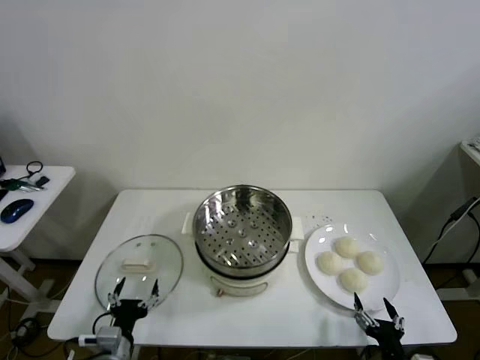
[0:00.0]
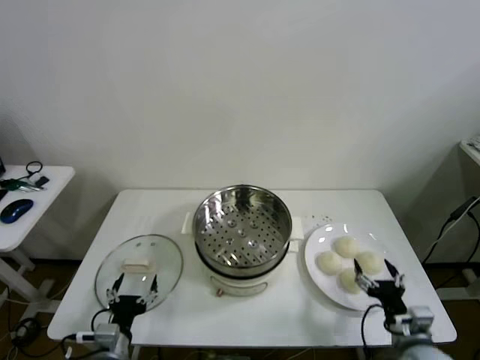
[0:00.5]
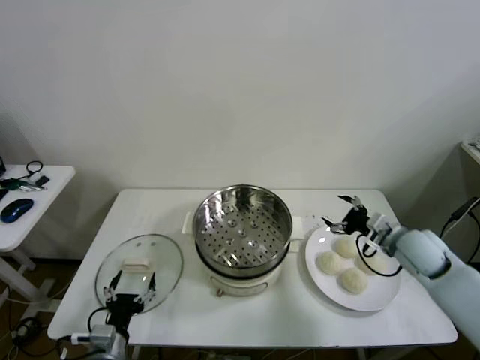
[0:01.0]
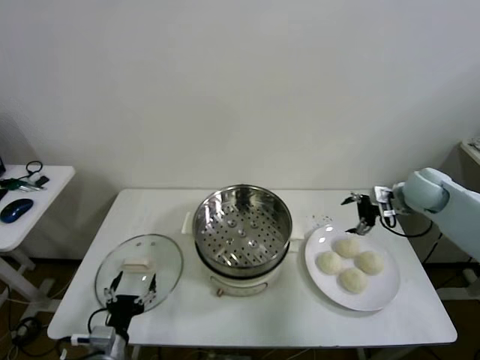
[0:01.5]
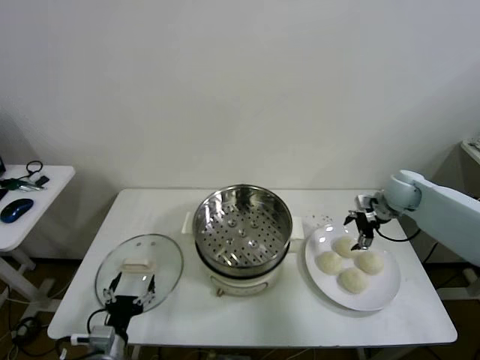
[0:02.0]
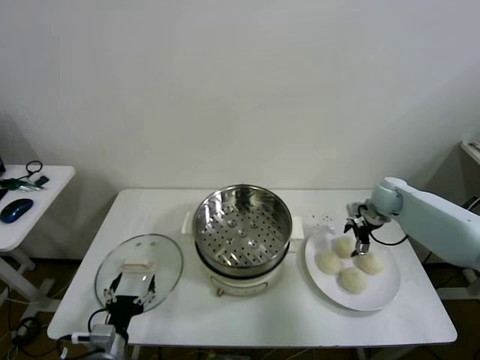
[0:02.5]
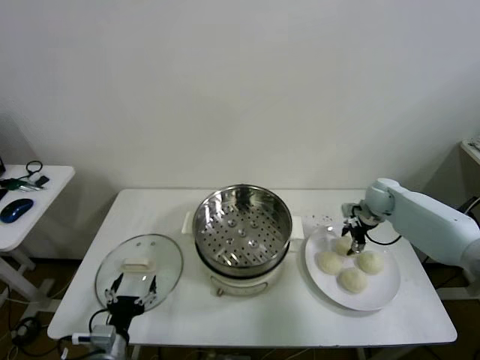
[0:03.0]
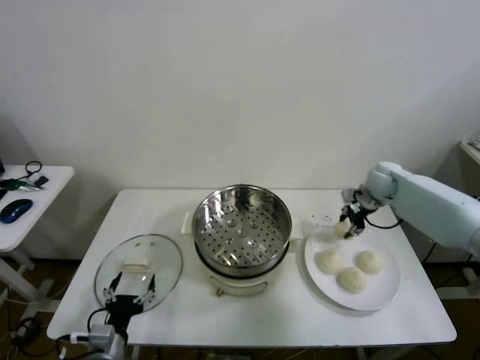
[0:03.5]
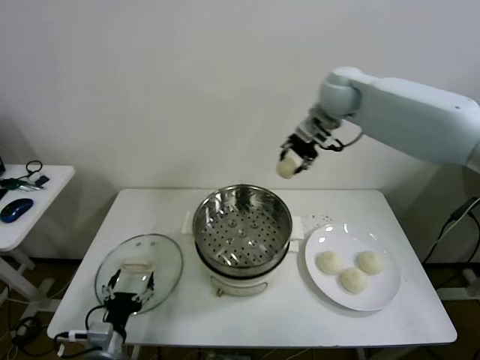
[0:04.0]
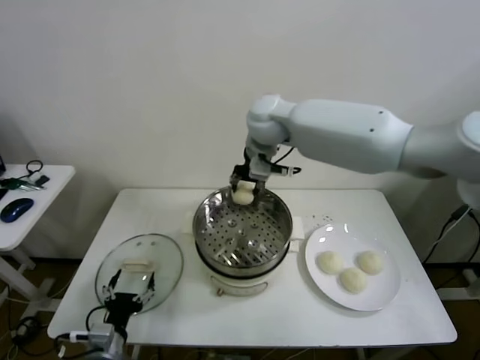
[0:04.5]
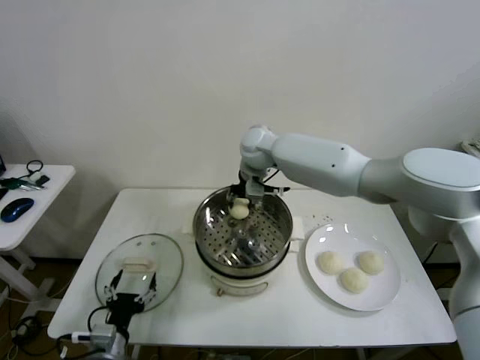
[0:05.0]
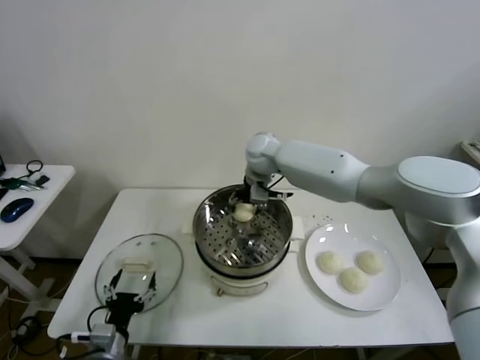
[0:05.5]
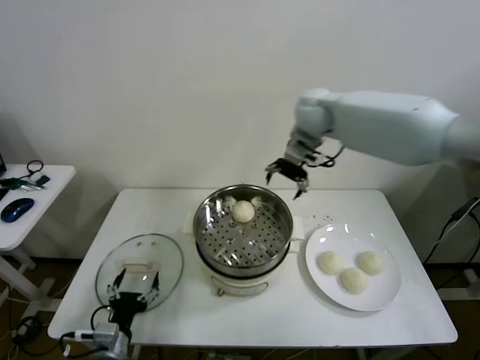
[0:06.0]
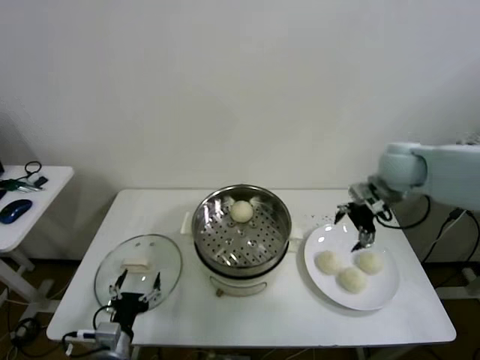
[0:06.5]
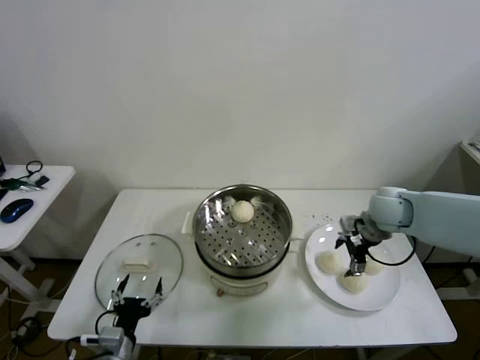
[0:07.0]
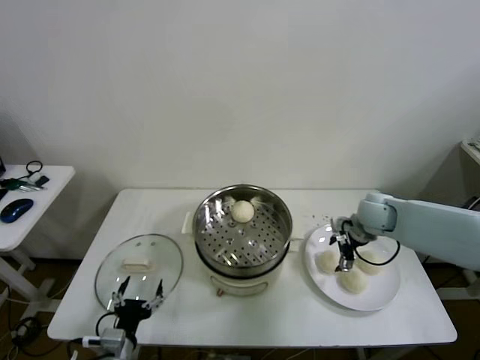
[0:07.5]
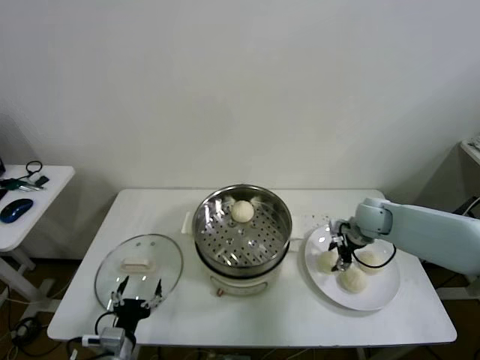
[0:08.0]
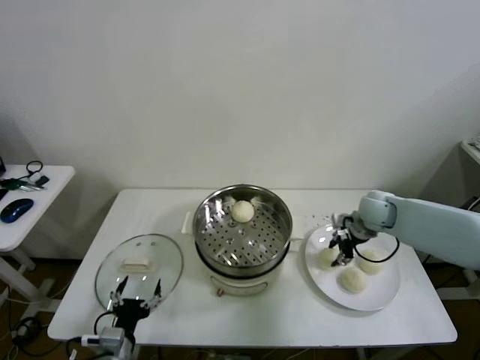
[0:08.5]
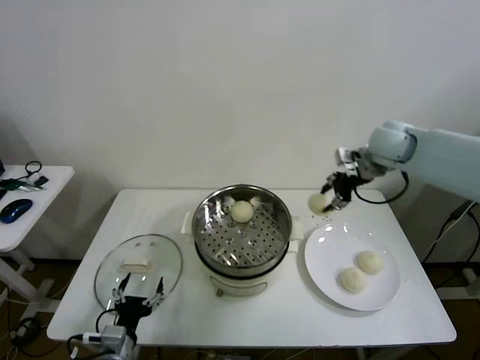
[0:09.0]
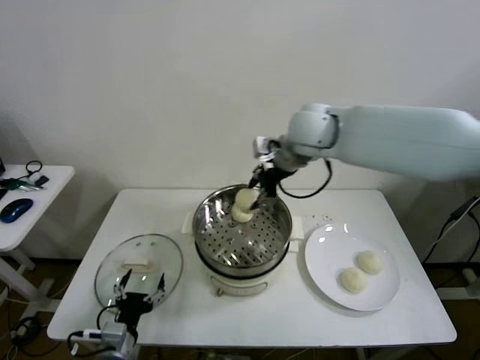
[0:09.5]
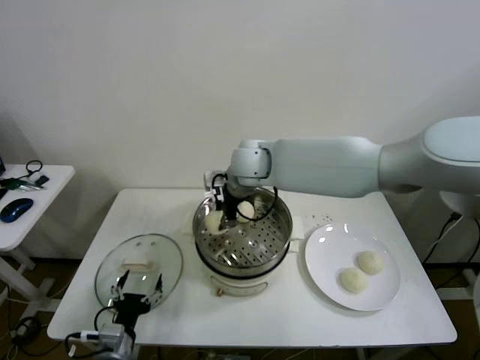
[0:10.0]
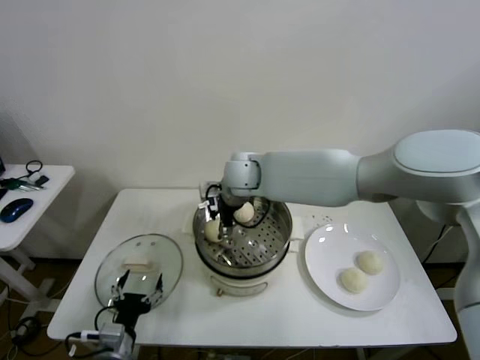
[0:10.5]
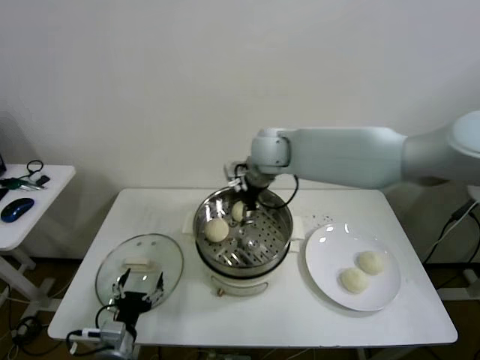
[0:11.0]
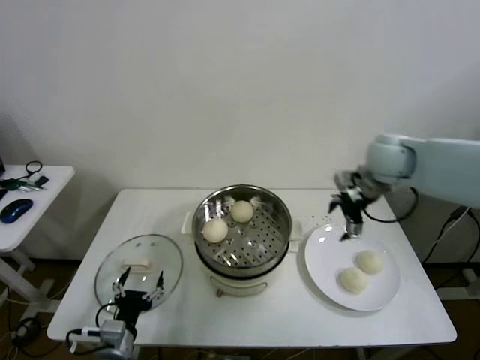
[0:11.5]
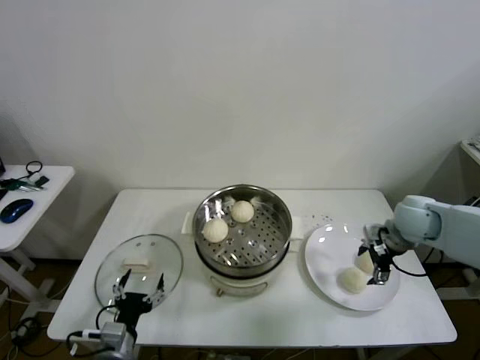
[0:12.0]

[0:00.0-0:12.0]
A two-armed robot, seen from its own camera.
Step, 0:00.0 to 0:03.0: Grasp the baozi in the plate with right gripper.
Step, 0:03.5 to 0:05.5: Place the baozi on the steamer with right gripper.
Step, 0:06.0 to 0:08.0: Grasp the baozi in the plate with right gripper.
Step, 0:08.5 to 0:10.5: Place the baozi on the steamer with right gripper.
0:02.0 to 0:04.0: The right gripper travels upward and to the left by roughly 35 cm, and closes.
0:04.0 to 0:06.0: The right gripper shifts some 10 cm to the right, and opens.
0:06.0 to 0:08.0: The right gripper travels downward and to the right by roughly 30 cm, and closes.
0:08.0 to 0:10.0: The right gripper shifts approximately 35 cm to the left and upward.
0:10.0 to 0:12.0: The right gripper heads to the right, covering about 35 cm, and opens its fingers.

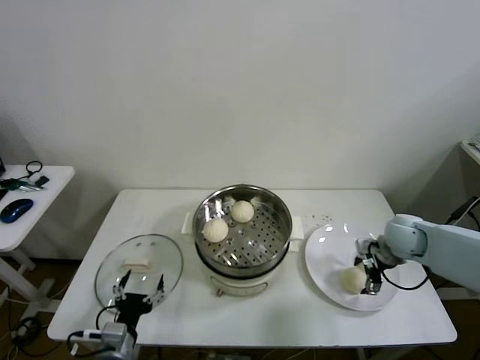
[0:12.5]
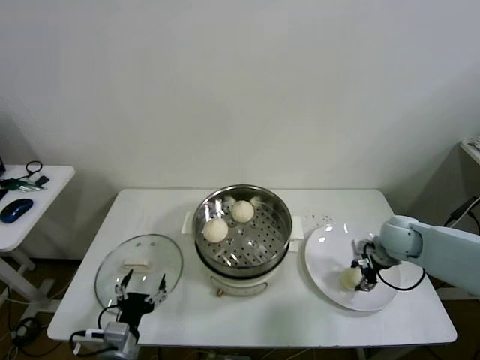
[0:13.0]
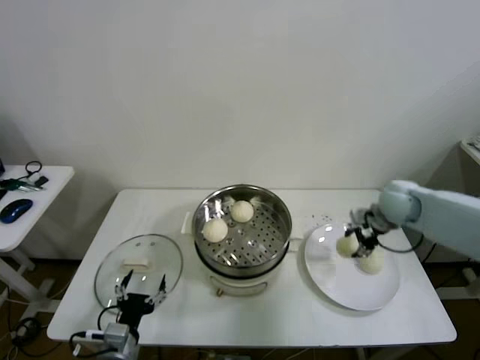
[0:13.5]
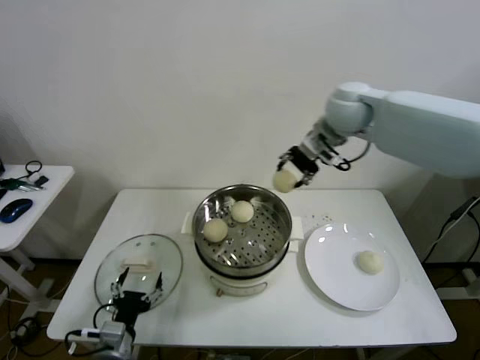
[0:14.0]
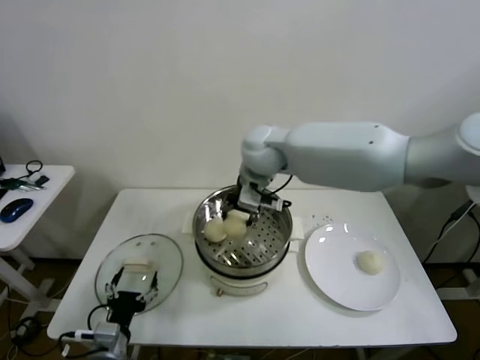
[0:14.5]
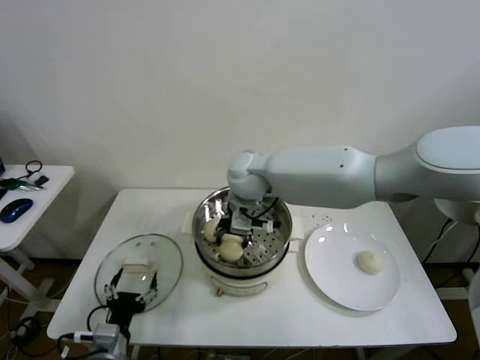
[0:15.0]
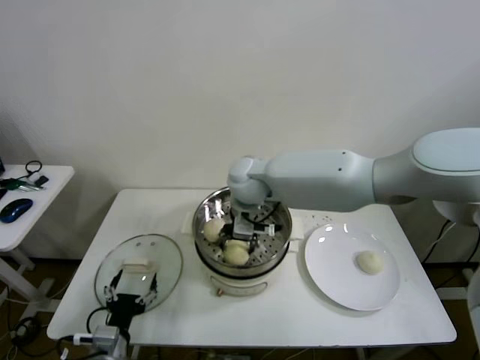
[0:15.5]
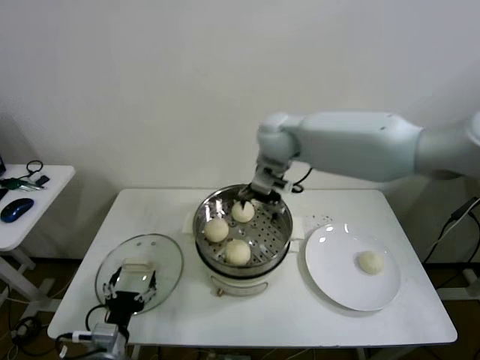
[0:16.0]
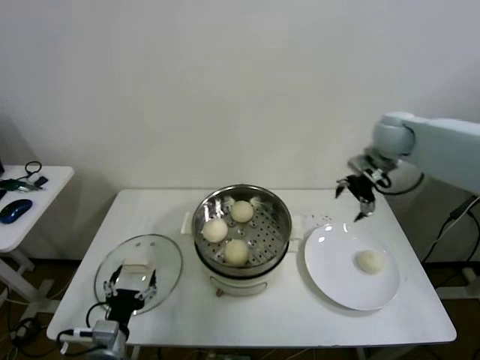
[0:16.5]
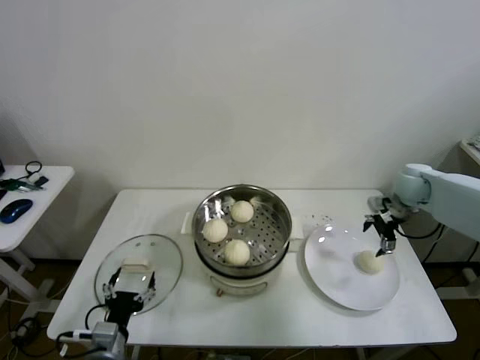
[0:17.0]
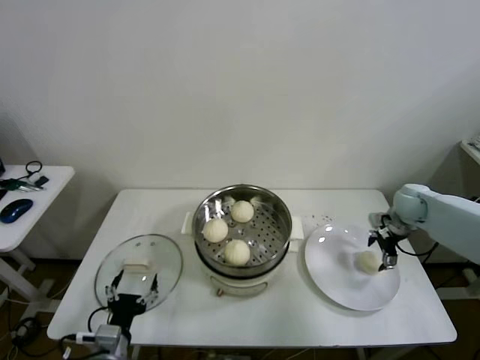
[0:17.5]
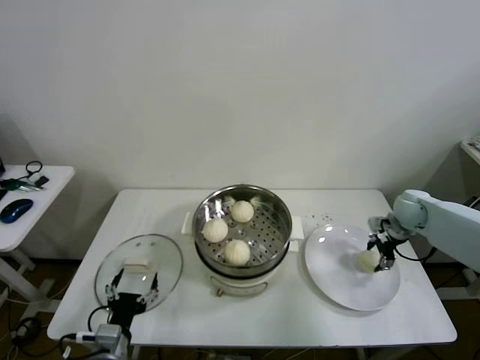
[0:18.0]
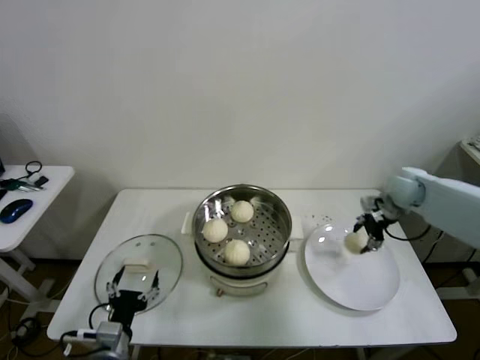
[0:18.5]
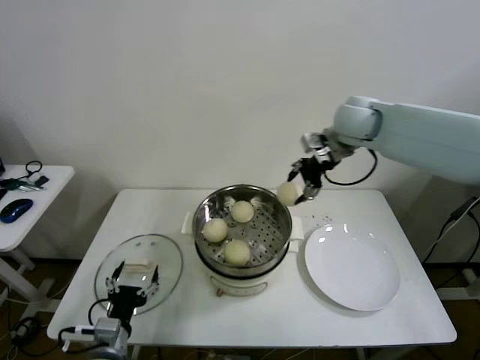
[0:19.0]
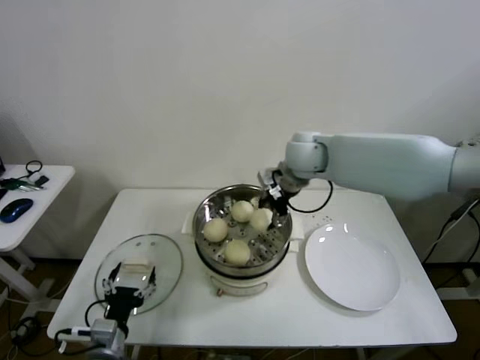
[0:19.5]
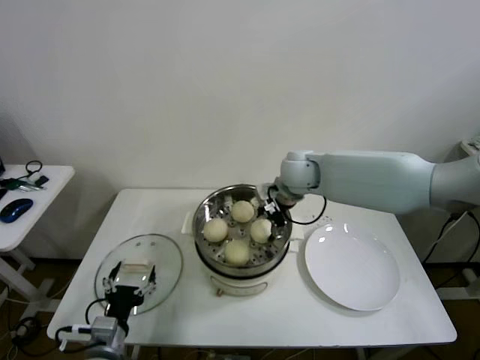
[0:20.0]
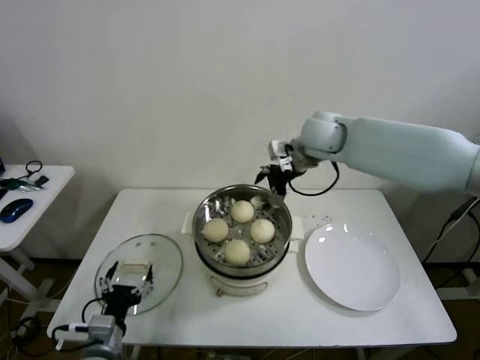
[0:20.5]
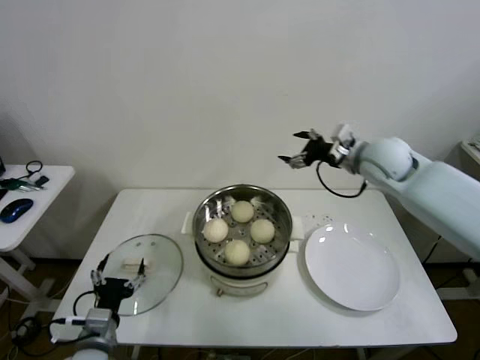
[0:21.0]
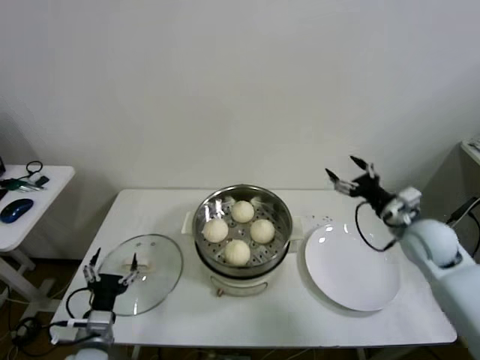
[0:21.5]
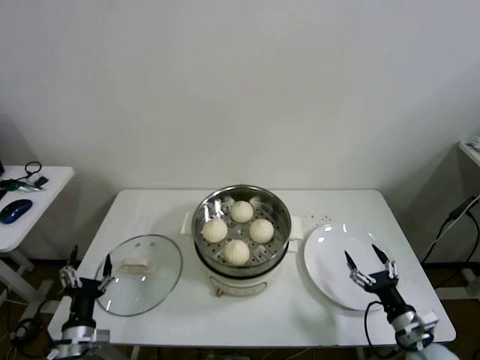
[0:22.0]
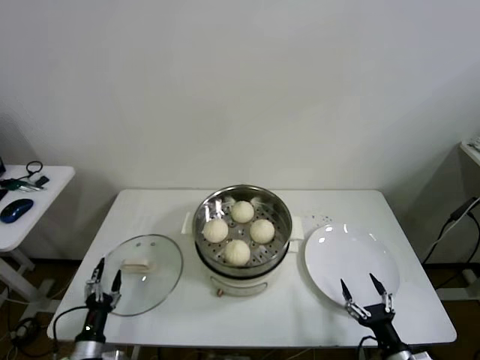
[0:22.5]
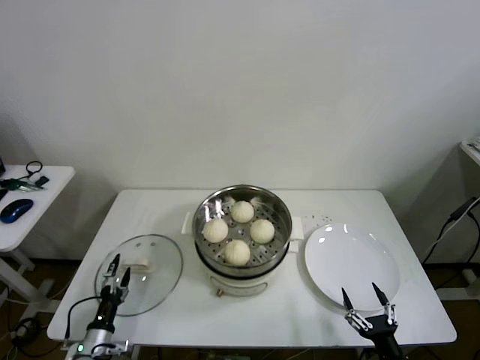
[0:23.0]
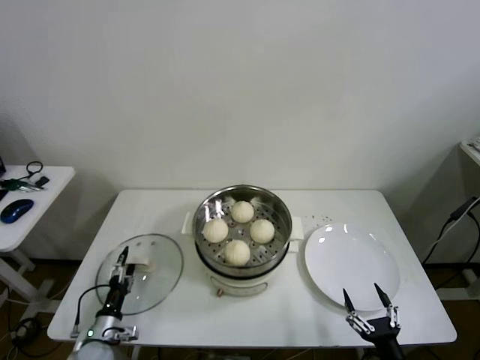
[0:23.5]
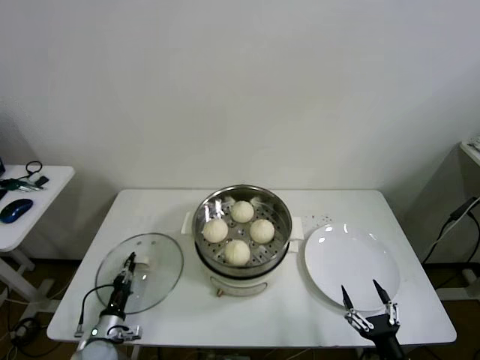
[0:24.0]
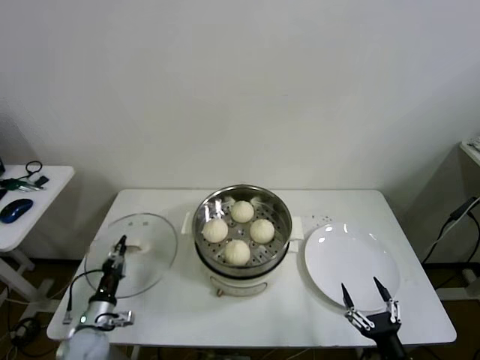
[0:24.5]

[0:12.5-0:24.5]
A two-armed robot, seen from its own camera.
Step, 0:13.5 to 0:15.5: Place the baozi on the steamer with right gripper.
Step, 0:16.0 to 0:18.0: Grasp the baozi in the plate with right gripper.
Step, 0:18.5 to 0:19.5: Place the baozi on the steamer with right gripper.
Step, 0:20.0 to 0:24.0: Grasp the pot lid with left gripper.
0:12.5 to 0:14.5: The right gripper is displaced to the left and upward by approximately 40 cm, and closes up.
0:14.5 to 0:16.5: The right gripper shifts some 30 cm to the right, and opens up.
0:16.5 to 0:18.5: The right gripper goes about 10 cm downward, and closes.
0:18.5 to 0:20.5: The right gripper goes some 25 cm to the left and upward, and opens.
0:20.5 to 0:22.5: The right gripper shifts some 60 cm backward, downward and to the right. Meanwhile the left gripper is displaced downward and to the left by roughly 15 cm.
0:22.5 to 0:24.5: The left gripper travels forward by about 10 cm, and closes up. Meanwhile the right gripper ends up approximately 5 cm from where it was.

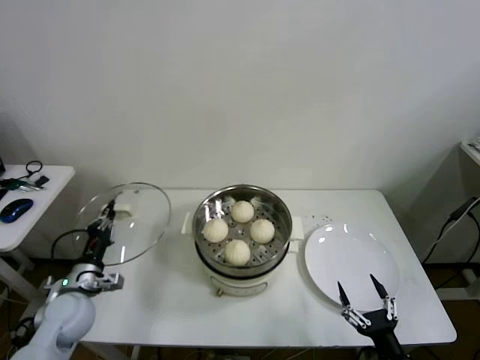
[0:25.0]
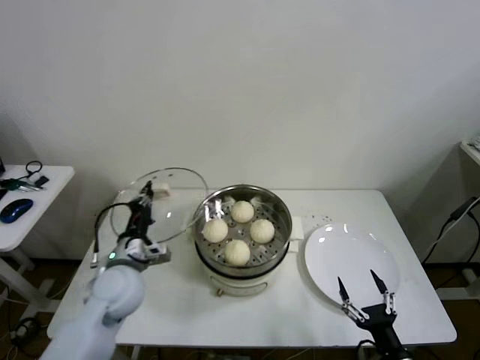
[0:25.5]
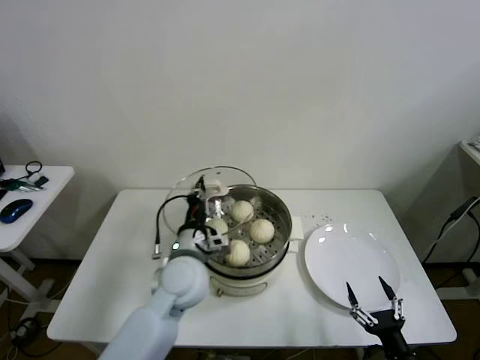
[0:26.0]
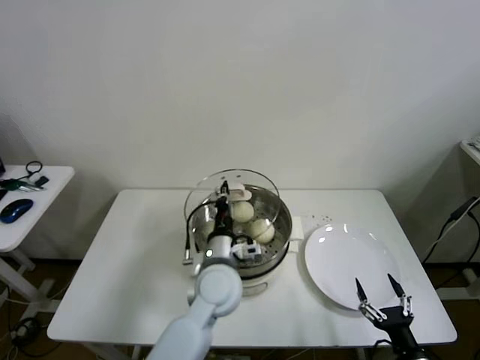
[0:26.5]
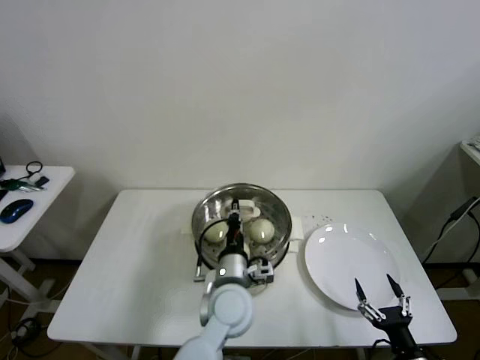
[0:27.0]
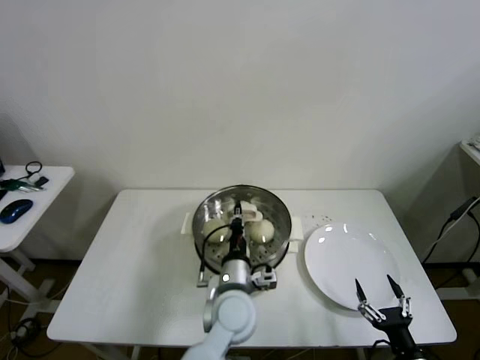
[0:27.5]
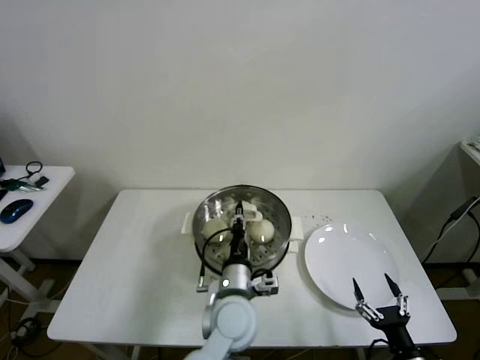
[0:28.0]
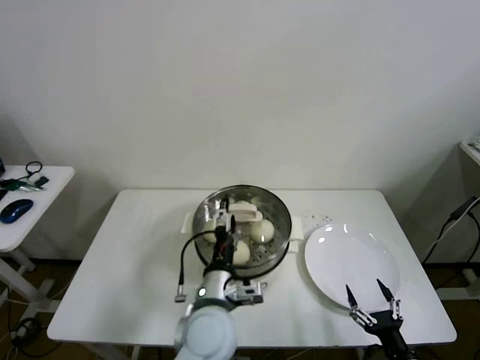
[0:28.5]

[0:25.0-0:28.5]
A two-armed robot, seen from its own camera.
Step, 0:25.0 to 0:28.0: Place the pot lid on the steamer with left gripper.
0:25.0 to 0:27.0: The left gripper moves to the right, approximately 35 cm.
0:27.0 to 0:28.5: The left gripper shifts by approximately 5 cm, and opens up.
